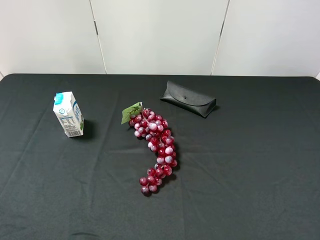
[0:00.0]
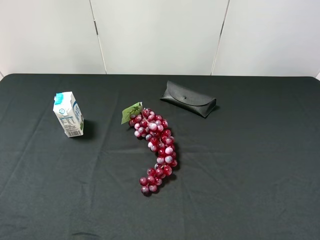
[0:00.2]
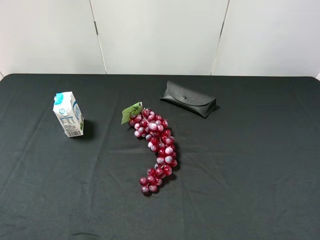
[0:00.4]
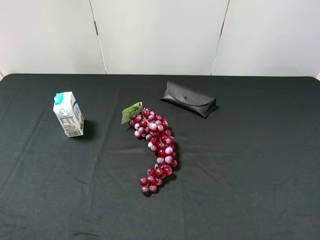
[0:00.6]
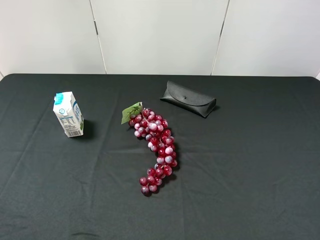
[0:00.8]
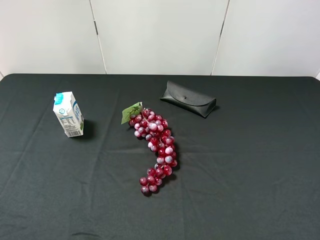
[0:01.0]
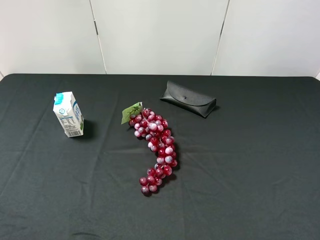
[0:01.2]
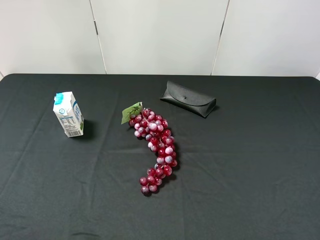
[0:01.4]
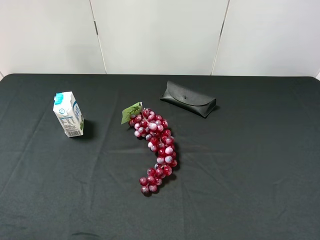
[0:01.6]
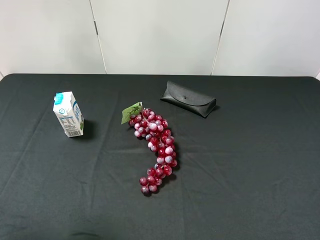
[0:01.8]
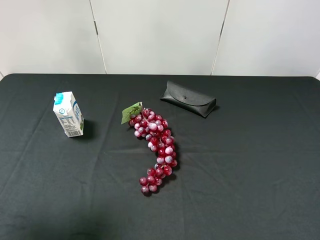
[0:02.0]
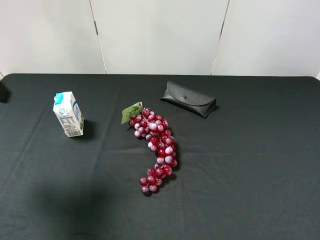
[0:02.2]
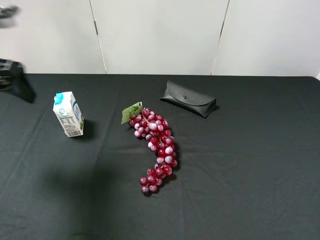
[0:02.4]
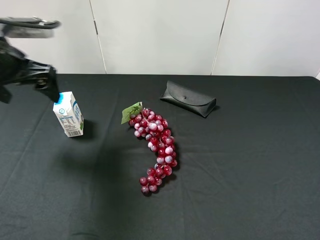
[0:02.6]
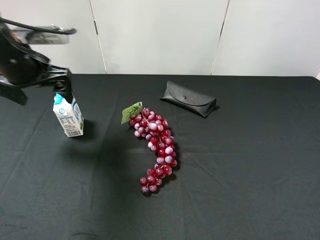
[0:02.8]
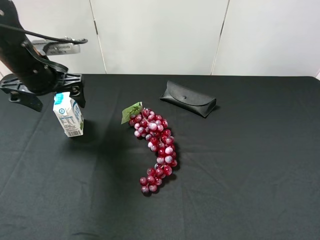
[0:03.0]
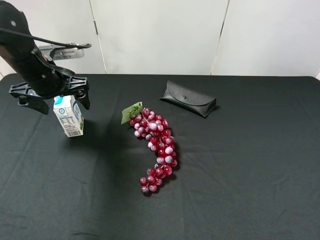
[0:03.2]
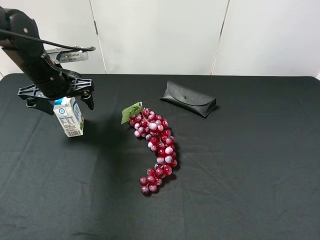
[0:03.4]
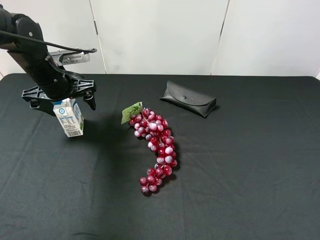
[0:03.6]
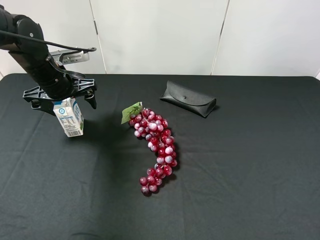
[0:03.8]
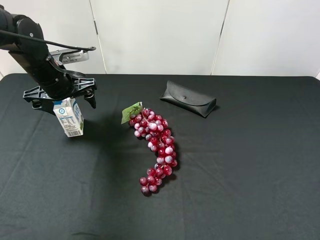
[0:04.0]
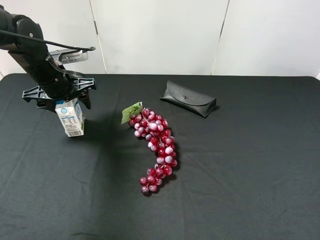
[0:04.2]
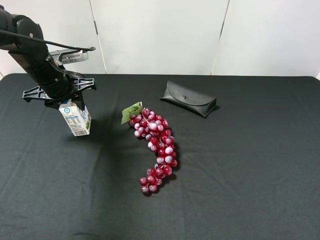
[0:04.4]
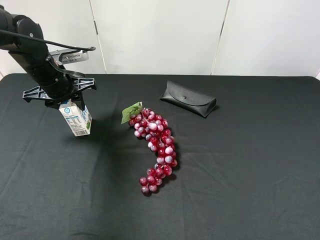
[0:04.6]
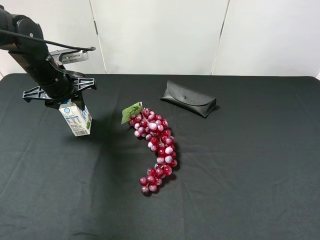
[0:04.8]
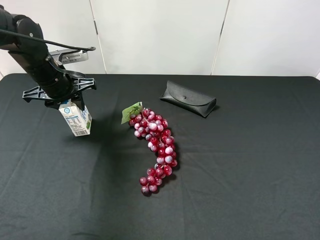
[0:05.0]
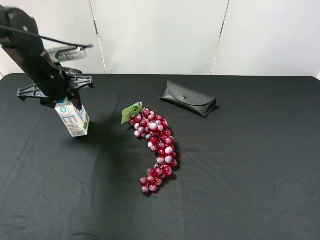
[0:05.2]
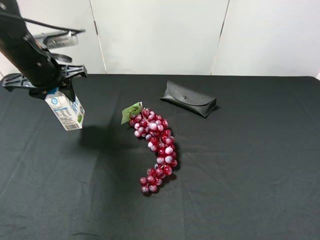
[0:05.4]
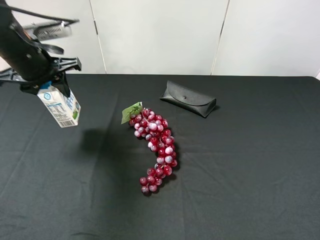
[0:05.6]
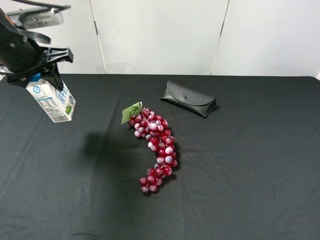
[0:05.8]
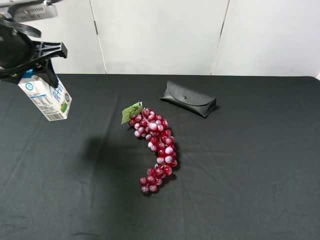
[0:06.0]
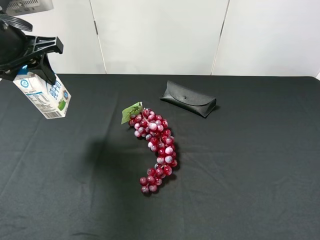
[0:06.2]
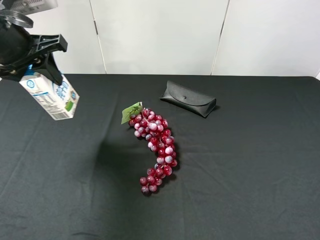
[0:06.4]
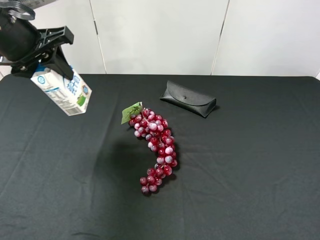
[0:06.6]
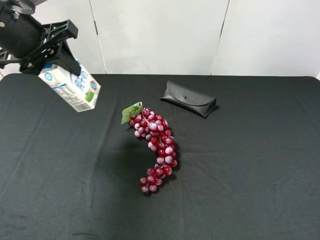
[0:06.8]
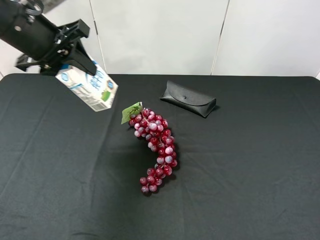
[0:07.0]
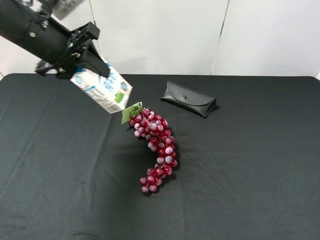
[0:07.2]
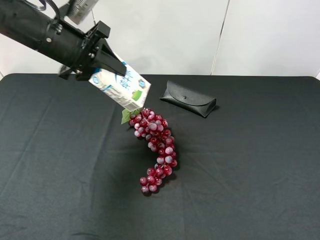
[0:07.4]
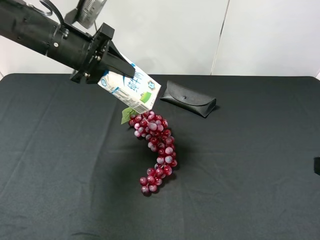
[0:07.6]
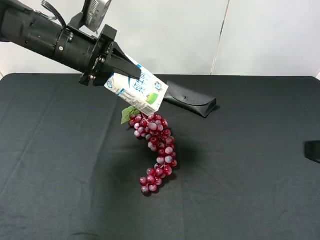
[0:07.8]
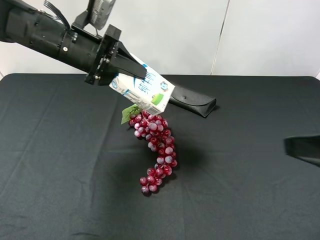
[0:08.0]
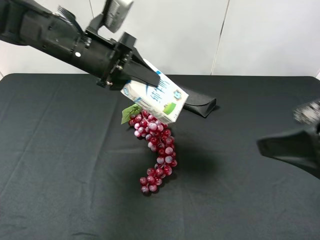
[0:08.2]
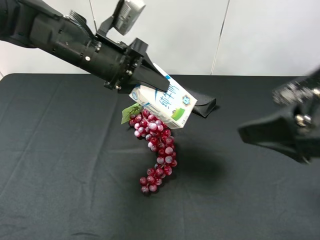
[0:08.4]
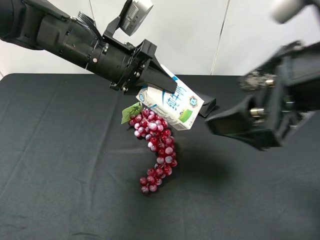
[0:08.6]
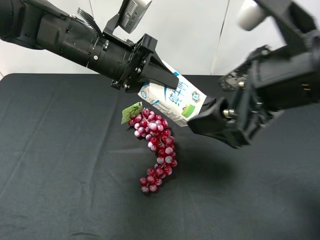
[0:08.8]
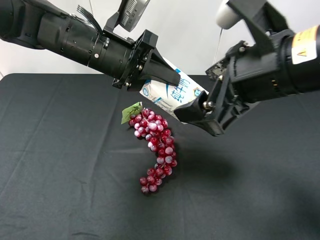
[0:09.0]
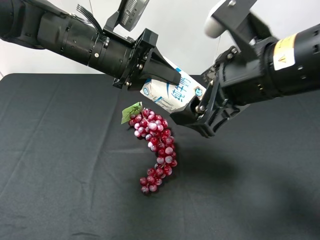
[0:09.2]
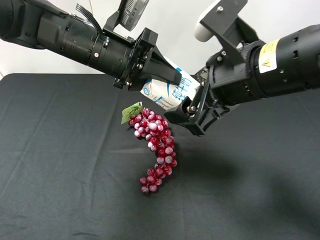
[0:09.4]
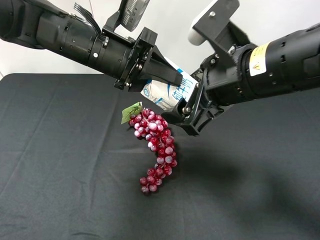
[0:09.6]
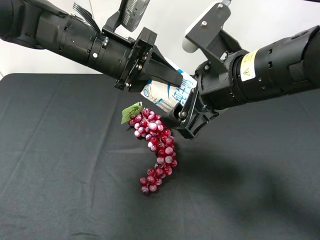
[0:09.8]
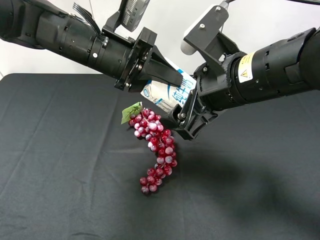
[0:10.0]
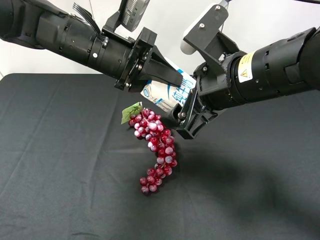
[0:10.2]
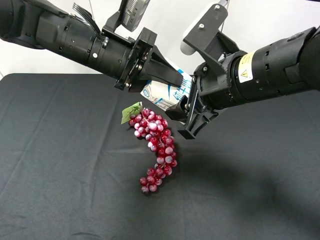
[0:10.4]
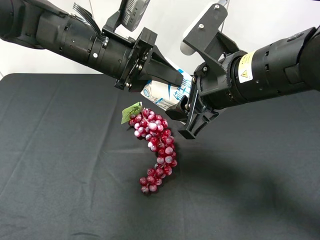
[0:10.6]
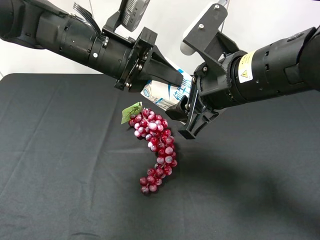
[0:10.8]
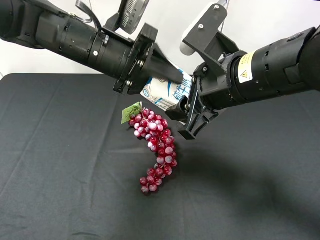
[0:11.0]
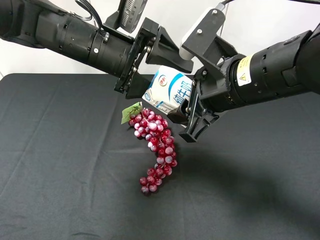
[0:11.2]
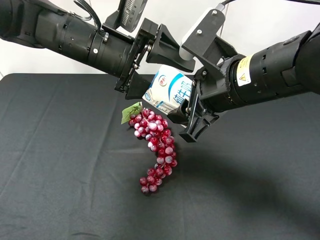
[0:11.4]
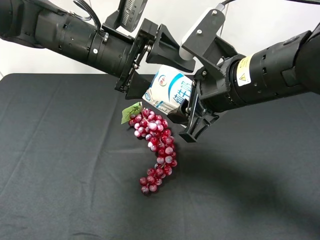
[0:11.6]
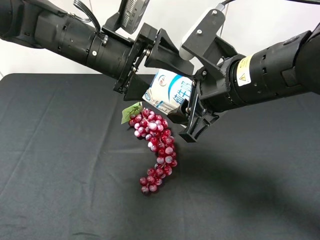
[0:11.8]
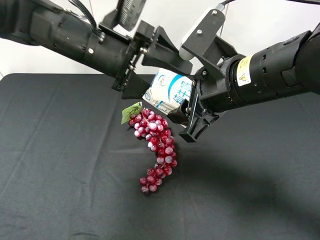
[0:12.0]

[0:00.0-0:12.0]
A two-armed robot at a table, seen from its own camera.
Task of the whole recording: use the left gripper to pick up the item and transfer it from the left gripper to the right gripper.
0:01.6 to 0:03.0: The left gripper moves forward and downward, about 30 cm.
0:03.0 to 0:04.4: The left gripper closes its fingers.
0:04.4 to 0:06.0: The left gripper is displaced upward and backward by approximately 15 cm.
0:06.0 to 0:07.6: The left gripper travels to the right by approximately 5 cm.
0:07.6 to 0:09.0: The left gripper shifts roughly 5 cm to the right, while the right gripper is displaced to the left and forward by roughly 20 cm.
0:09.0 to 0:10.4: The right gripper closes up.
0:10.4 to 0:12.0: The left gripper opens its fingers.

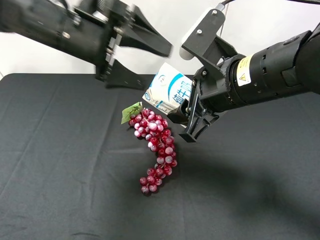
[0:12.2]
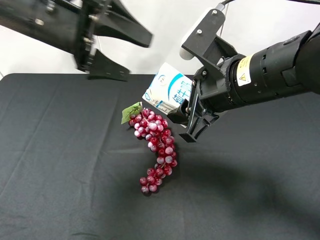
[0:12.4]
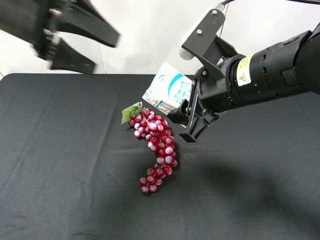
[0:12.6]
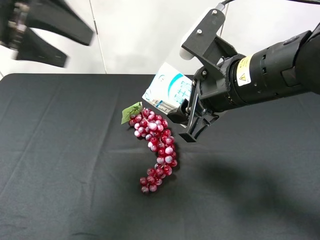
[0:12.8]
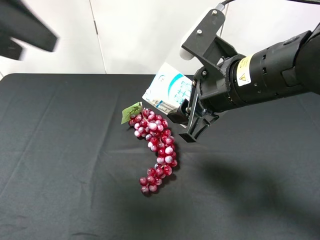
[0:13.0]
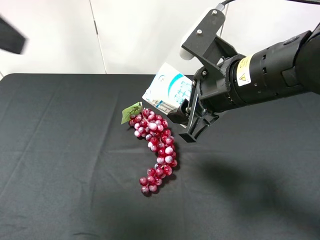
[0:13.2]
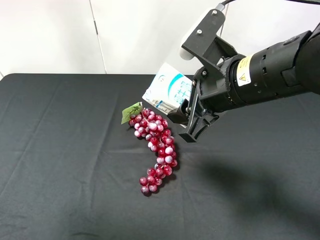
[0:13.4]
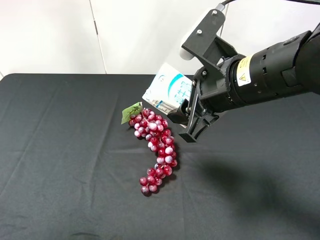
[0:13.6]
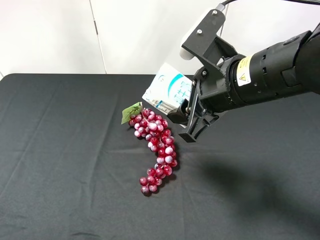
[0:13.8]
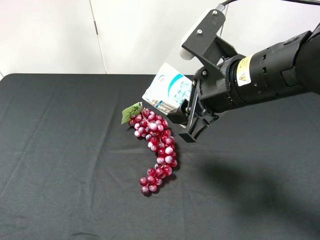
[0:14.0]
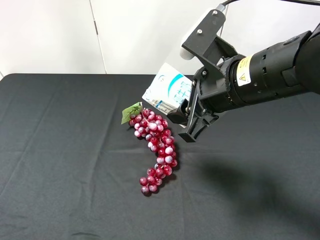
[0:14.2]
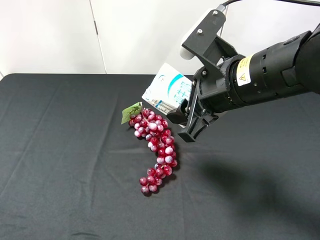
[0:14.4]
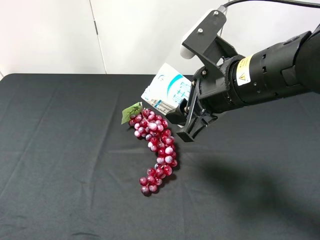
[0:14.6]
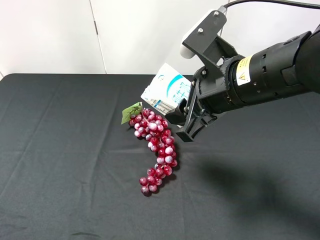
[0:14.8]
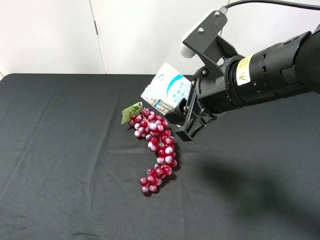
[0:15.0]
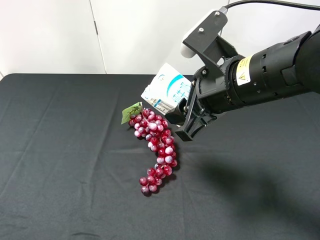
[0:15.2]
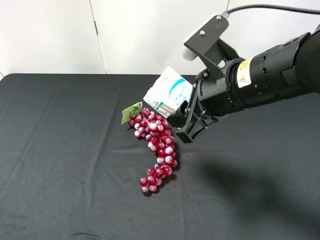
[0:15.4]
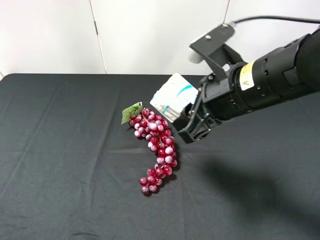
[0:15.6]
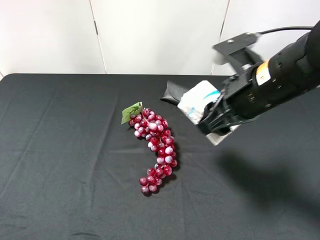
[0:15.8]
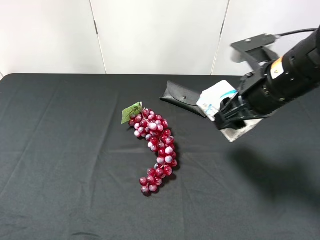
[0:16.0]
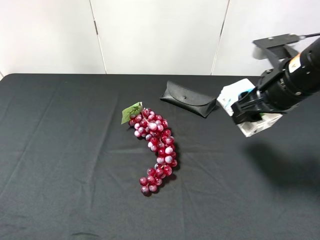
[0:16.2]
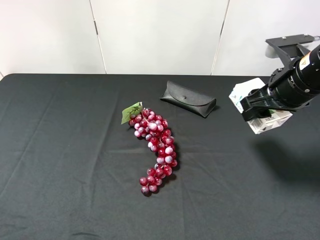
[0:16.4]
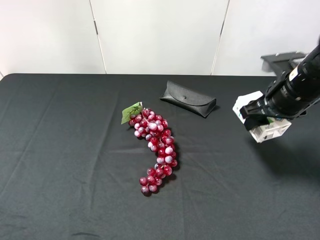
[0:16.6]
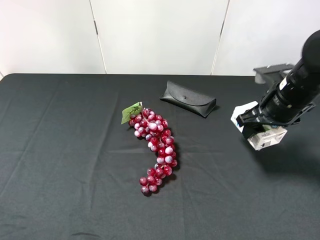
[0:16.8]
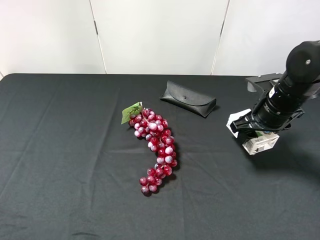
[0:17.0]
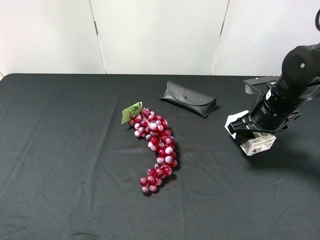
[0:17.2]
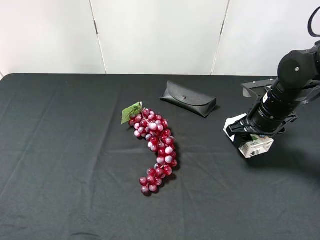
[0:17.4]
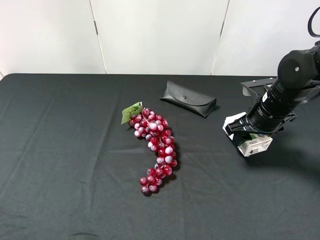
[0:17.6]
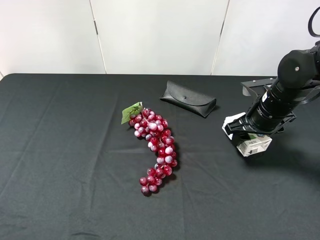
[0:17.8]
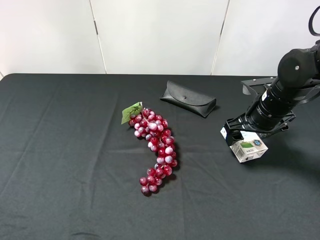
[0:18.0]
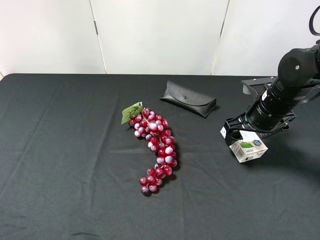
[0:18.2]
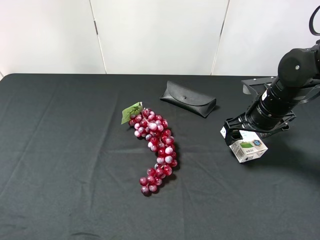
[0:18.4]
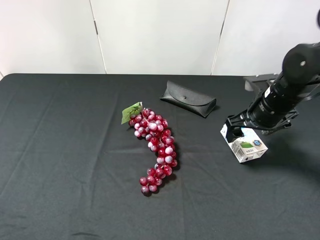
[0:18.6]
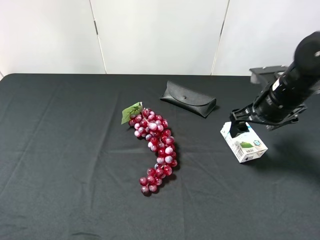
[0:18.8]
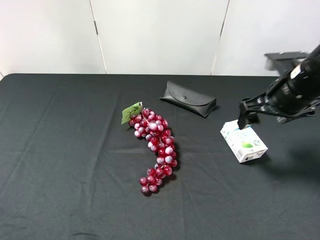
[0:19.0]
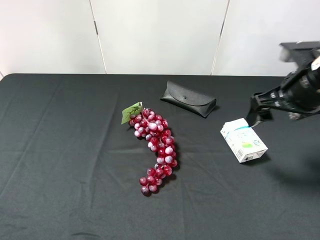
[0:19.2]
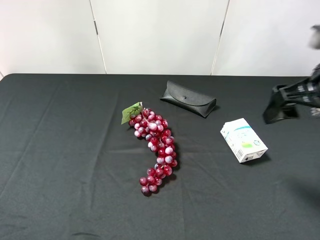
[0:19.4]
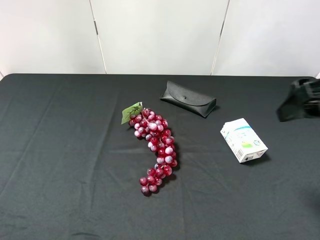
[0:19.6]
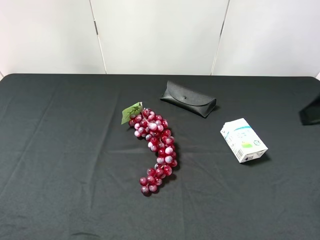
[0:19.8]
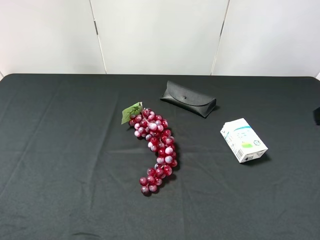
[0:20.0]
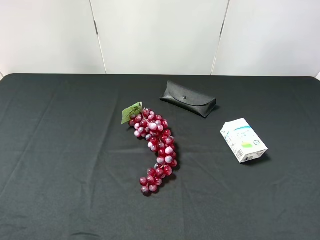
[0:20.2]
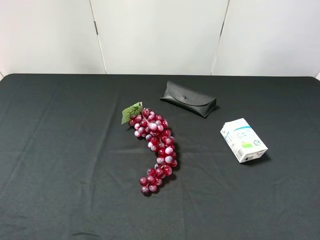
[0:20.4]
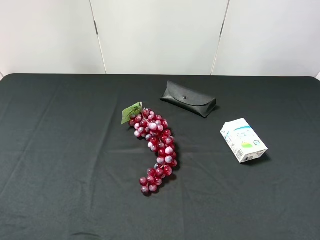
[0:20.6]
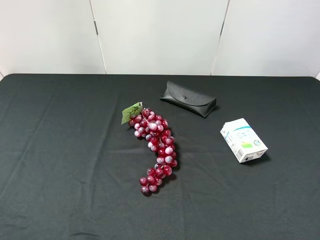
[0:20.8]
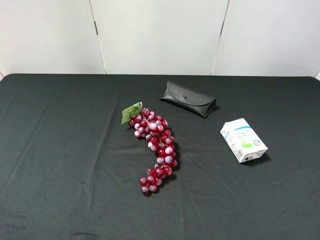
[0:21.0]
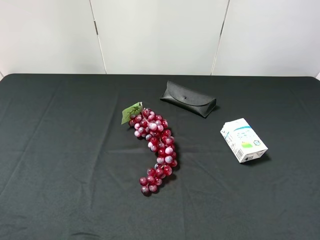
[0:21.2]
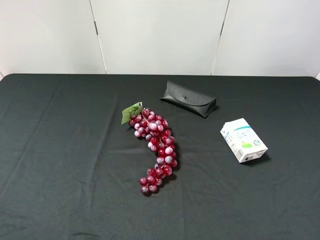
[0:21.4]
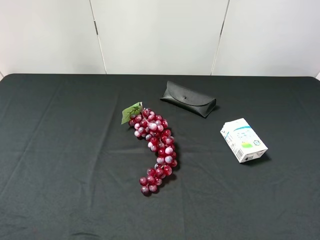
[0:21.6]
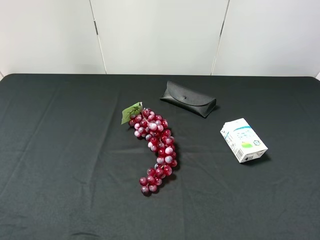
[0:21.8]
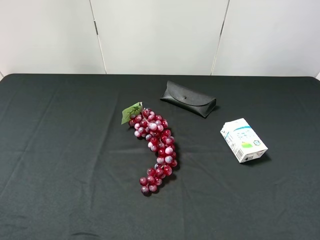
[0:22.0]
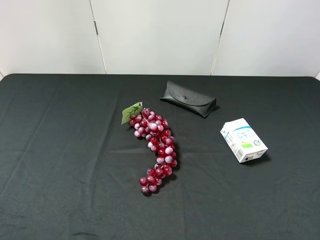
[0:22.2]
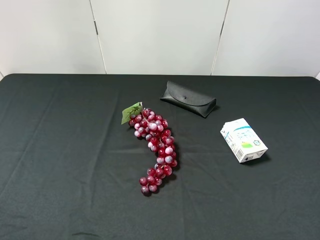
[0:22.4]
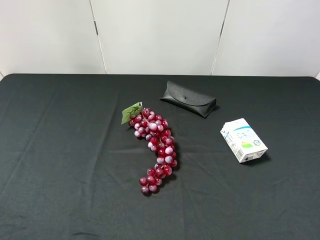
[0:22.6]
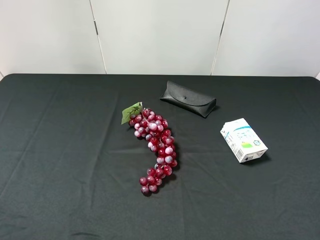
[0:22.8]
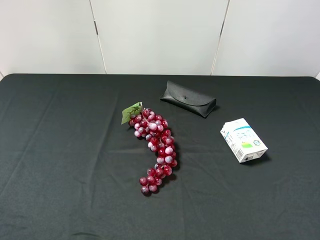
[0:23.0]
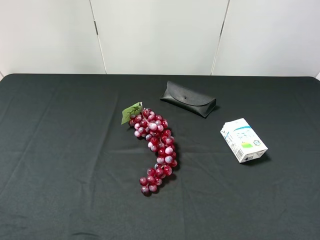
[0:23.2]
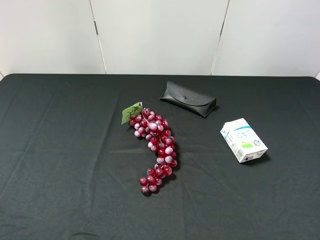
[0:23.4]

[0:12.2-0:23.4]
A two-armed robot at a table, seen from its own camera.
Task of the whole recording: use the left gripper to pick up the item and transfer it from the left gripper to the right gripper.
0:12.2 to 0:13.8: The left gripper travels backward, to the left and upward by roughly 35 cm.
0:13.8 to 0:15.4: The left gripper travels downward by approximately 15 cm.
0:15.4 to 0:17.0: The right gripper shifts roughly 20 cm to the right, downward and forward.
0:17.0 to 0:18.6: The right gripper opens.
0:18.6 to 0:20.2: The right gripper is displaced backward and upward by some 25 cm.
